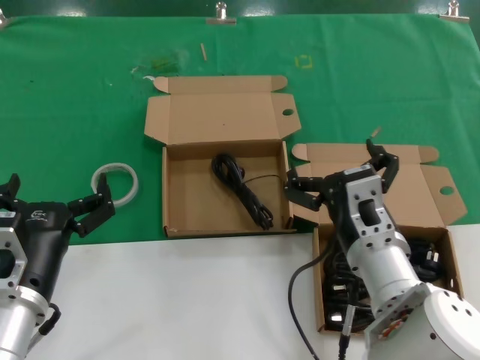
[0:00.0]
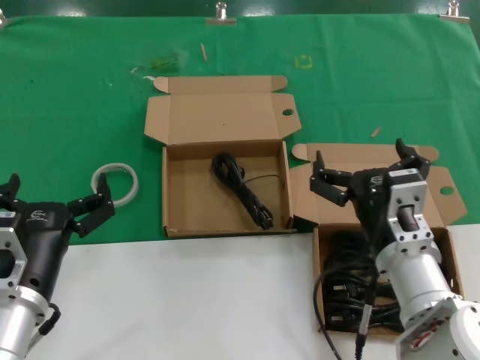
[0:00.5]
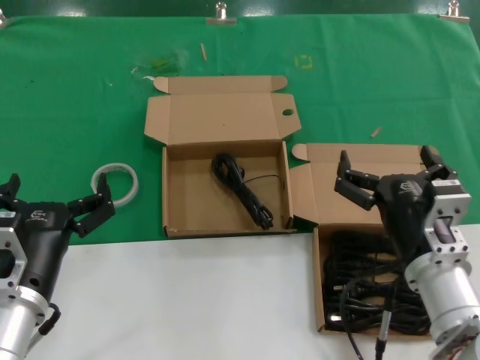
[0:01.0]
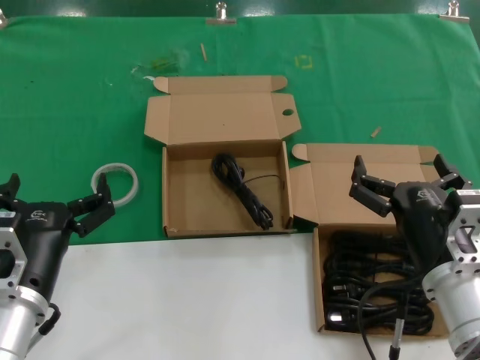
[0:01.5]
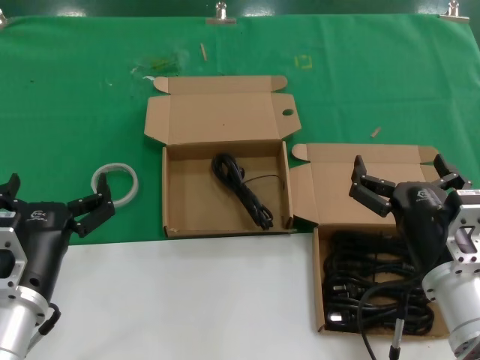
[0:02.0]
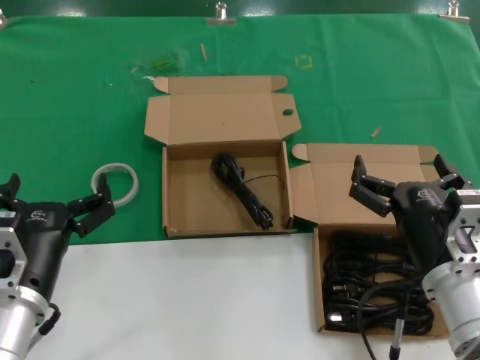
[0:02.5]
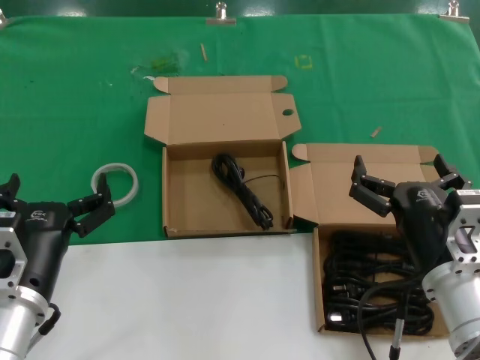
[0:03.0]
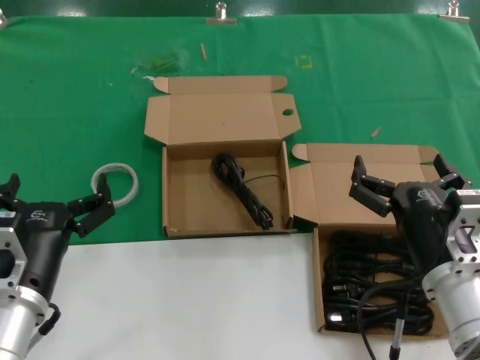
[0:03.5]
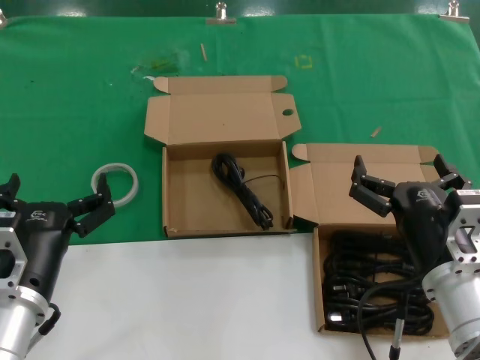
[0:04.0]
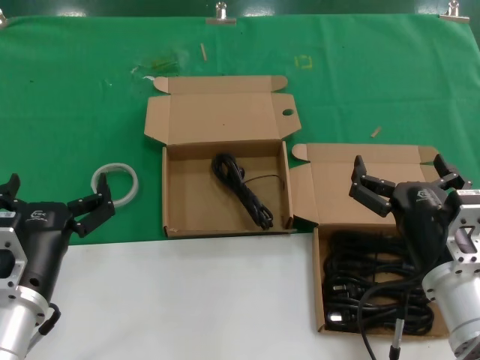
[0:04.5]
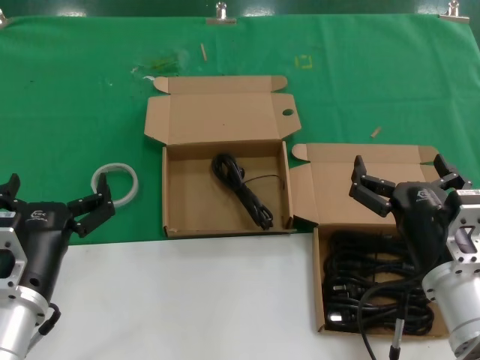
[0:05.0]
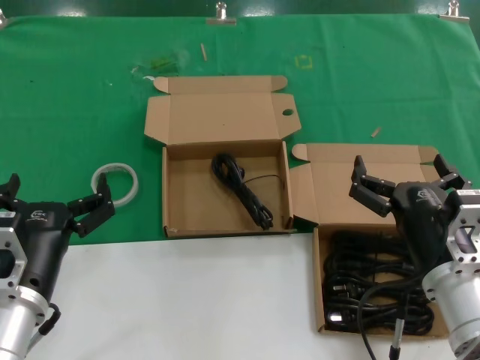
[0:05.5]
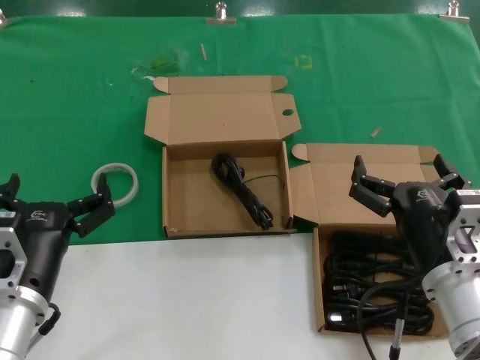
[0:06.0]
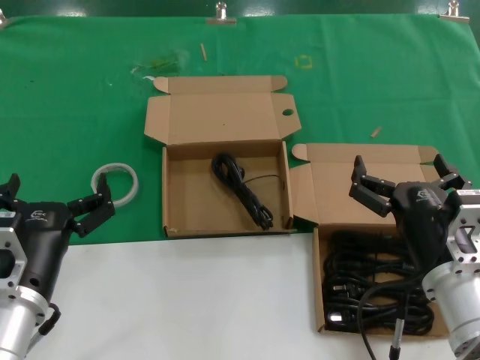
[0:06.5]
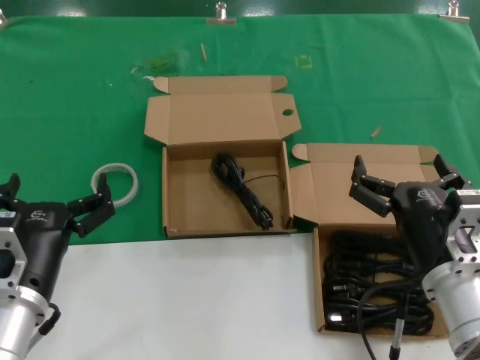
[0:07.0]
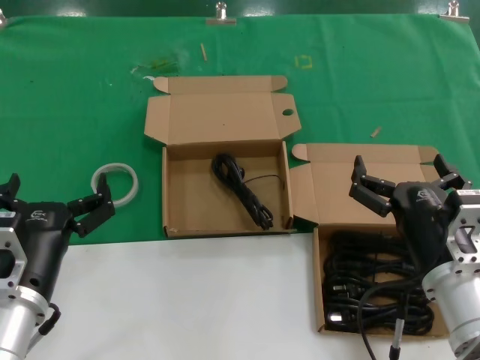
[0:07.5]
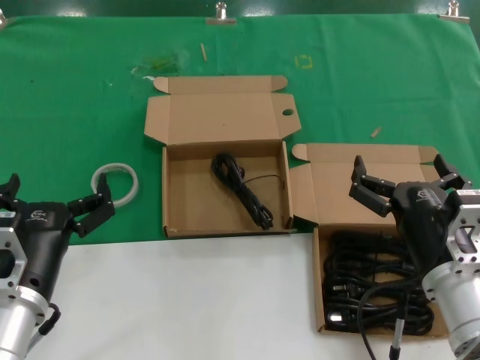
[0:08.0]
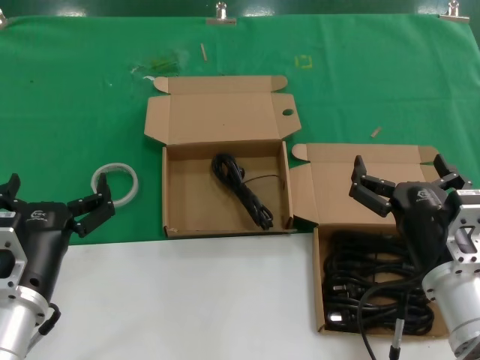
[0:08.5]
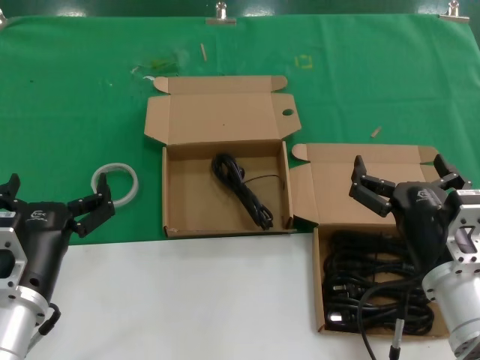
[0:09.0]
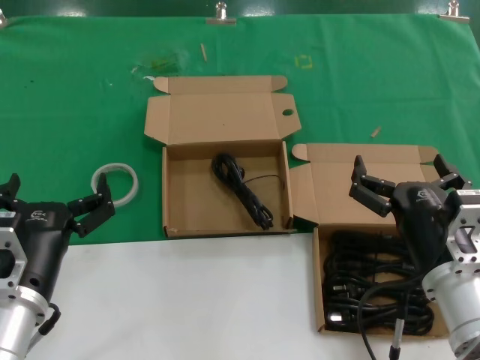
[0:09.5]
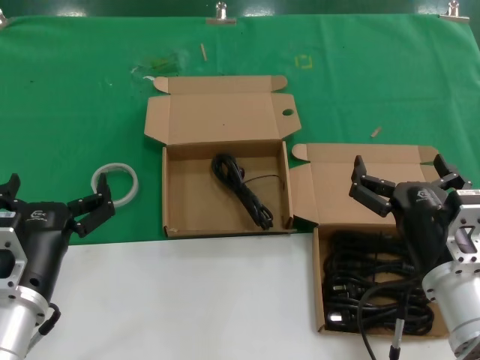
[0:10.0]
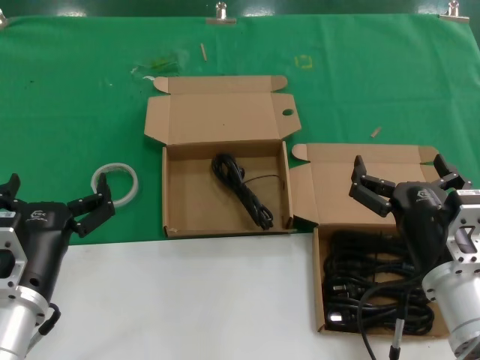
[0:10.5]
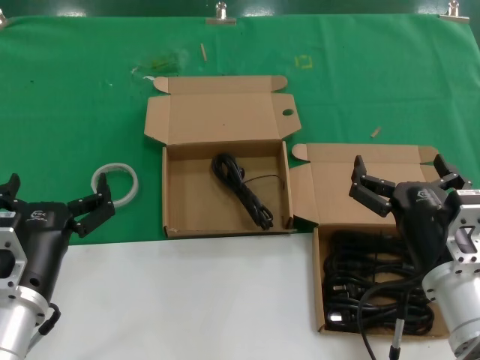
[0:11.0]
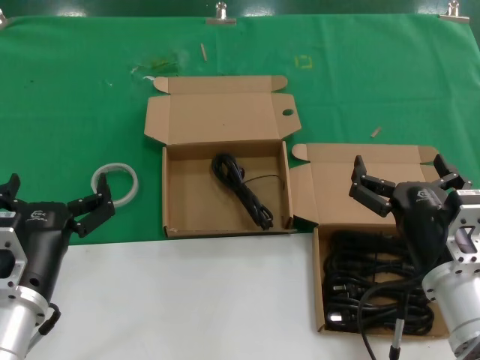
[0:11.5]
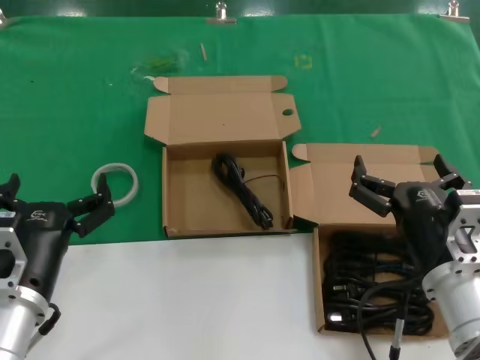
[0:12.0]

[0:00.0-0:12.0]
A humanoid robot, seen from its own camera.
Task of the whole recording: take the parts from the box containing them and put them into an empty box.
0:00.0 to 0:02.0: The right hand travels to the right by approximately 10 cm.
0:02.0 to 0:12.0: The two hands keep their place.
